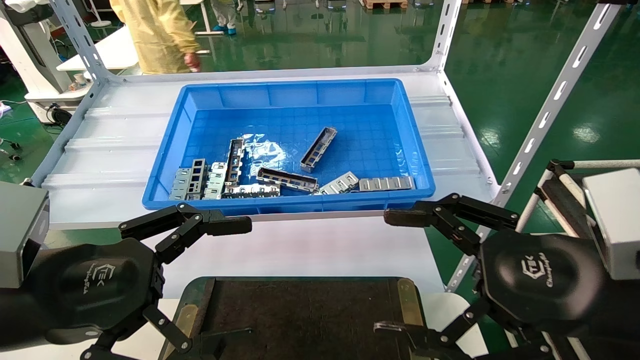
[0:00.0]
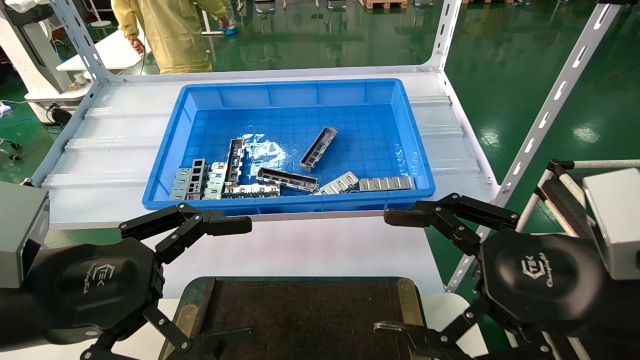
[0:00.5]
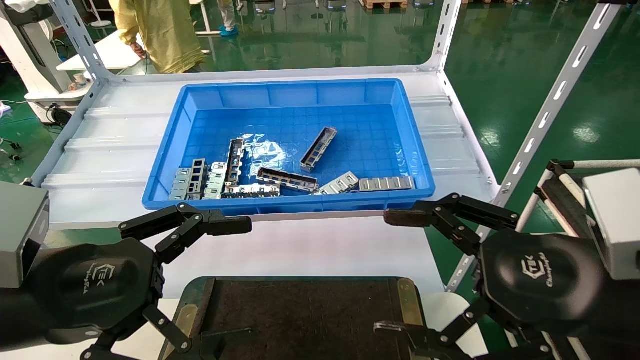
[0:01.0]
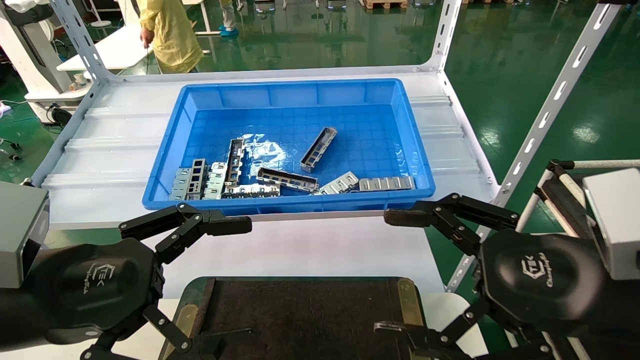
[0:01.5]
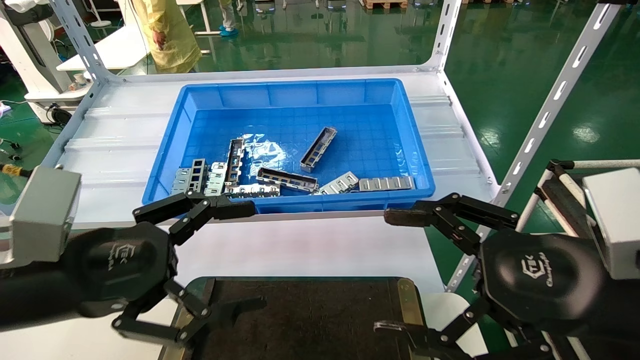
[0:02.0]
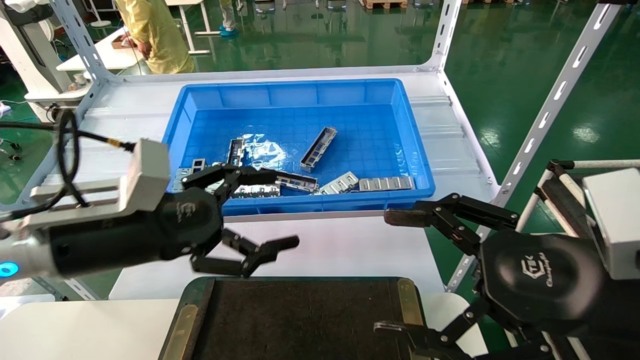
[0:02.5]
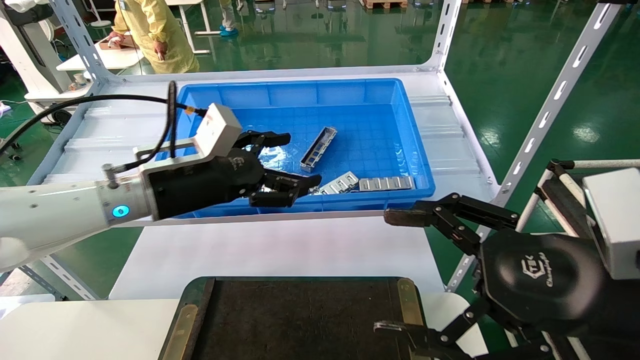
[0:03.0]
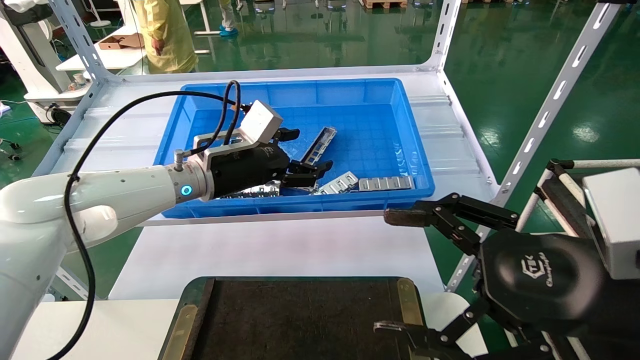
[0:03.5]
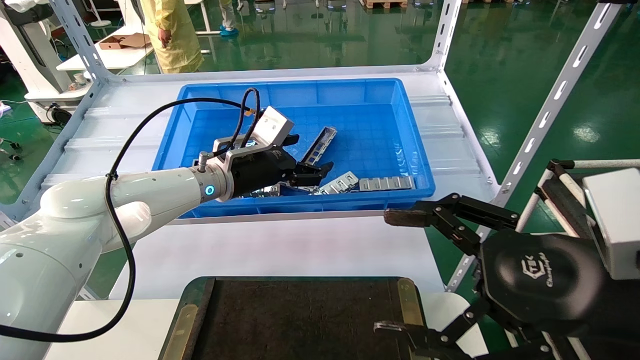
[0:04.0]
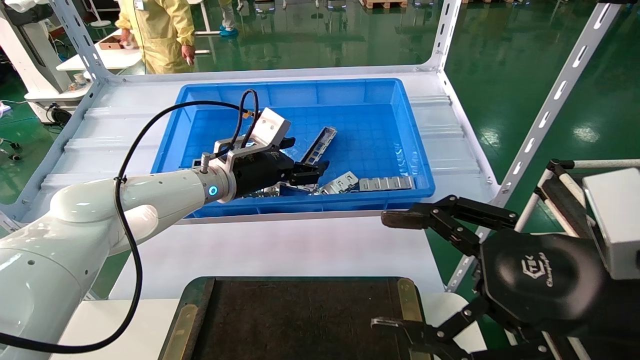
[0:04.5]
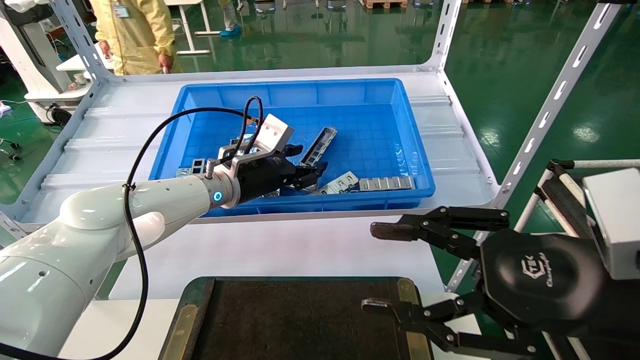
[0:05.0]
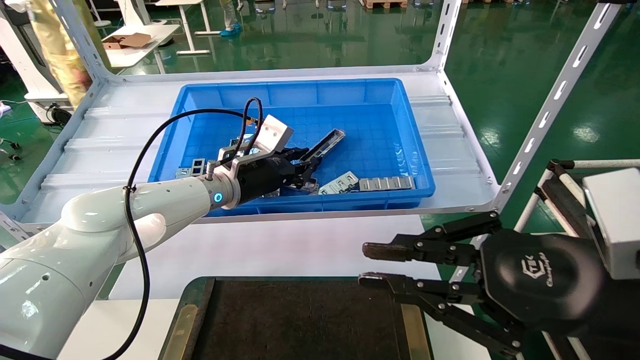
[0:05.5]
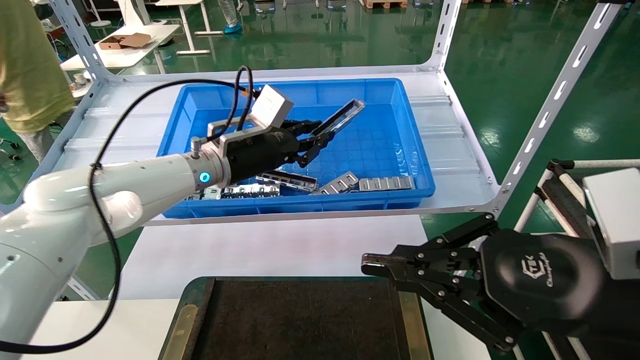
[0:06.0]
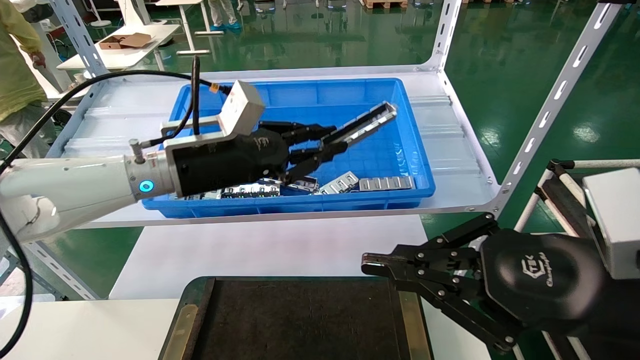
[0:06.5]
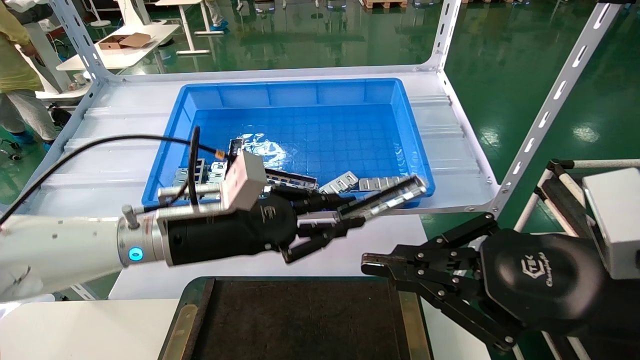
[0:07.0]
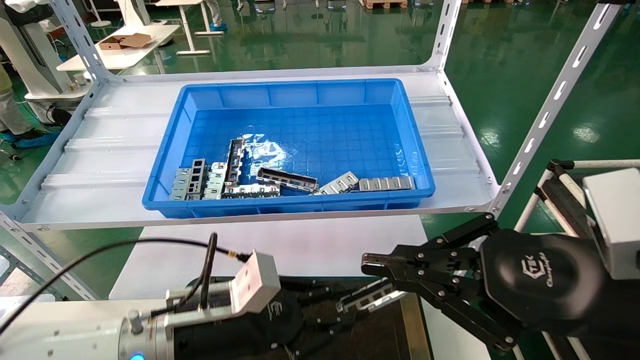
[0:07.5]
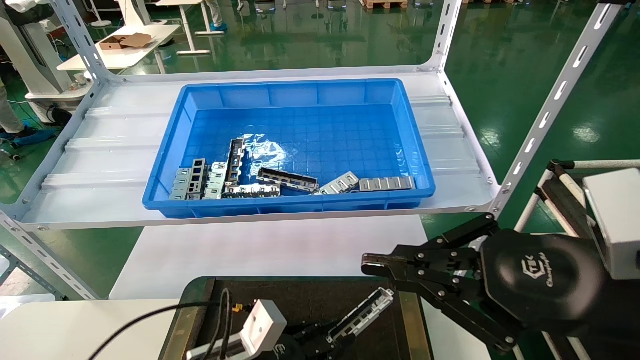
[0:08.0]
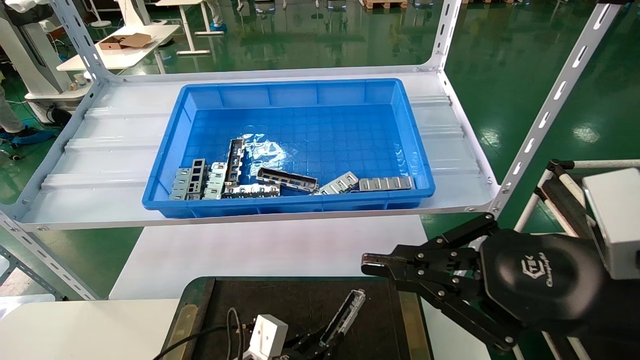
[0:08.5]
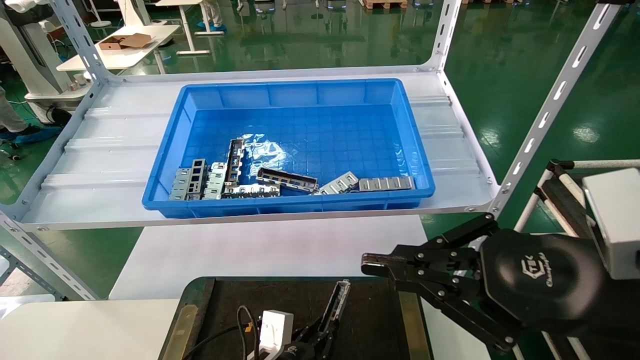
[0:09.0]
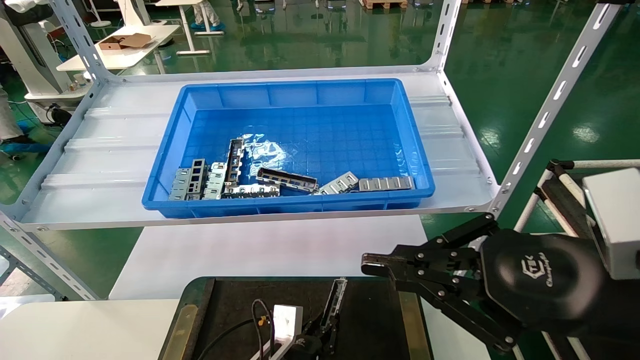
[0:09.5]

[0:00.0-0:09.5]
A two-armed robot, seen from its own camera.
Task of the whole recording: Grasp the part with one hand and place it on the black container.
Step, 0:02.0 to 0:05.0: Pick up the front USB bracket from the feeding area.
0:00.0 to 0:02.0: There are only small adjustments of the grippers.
0:02.0 to 0:04.0: The left gripper heads forward and to the right, covering about 30 cm.
0:04.0 to 0:05.5: The left gripper closes its fingers. The right gripper closes up.
0:05.5 to 0:07.5: The left gripper heads backward and downward, covering roughly 25 cm.
0:07.5 to 0:09.5: The left gripper travels downward and to the right by approximately 20 cm.

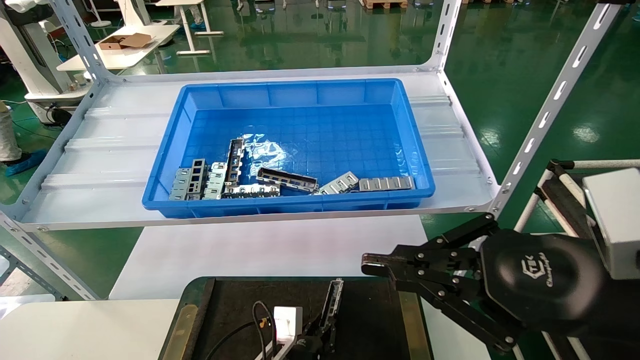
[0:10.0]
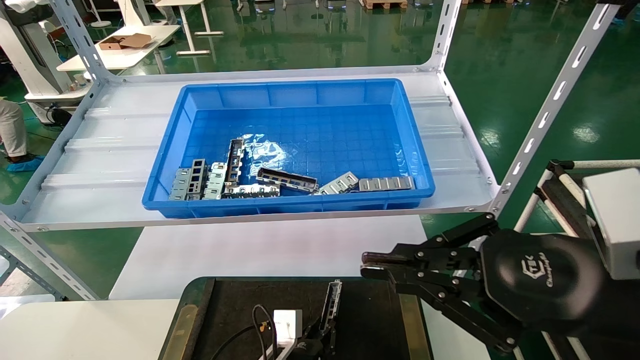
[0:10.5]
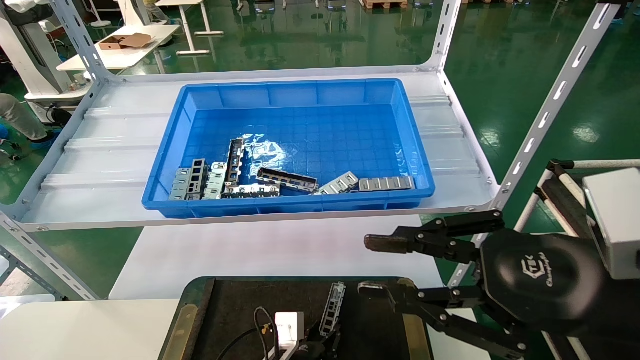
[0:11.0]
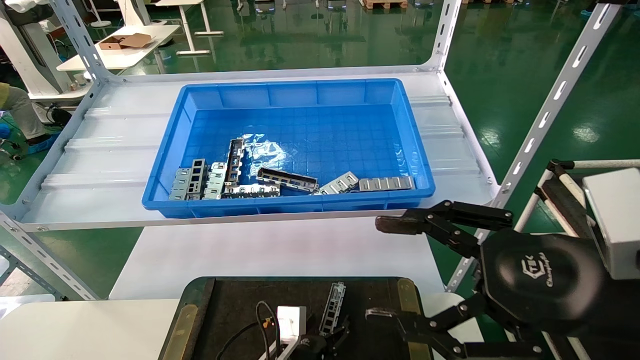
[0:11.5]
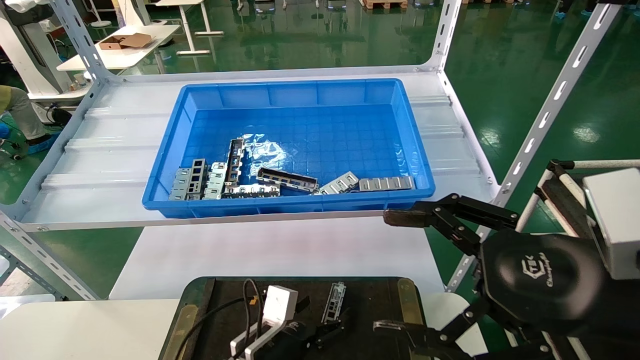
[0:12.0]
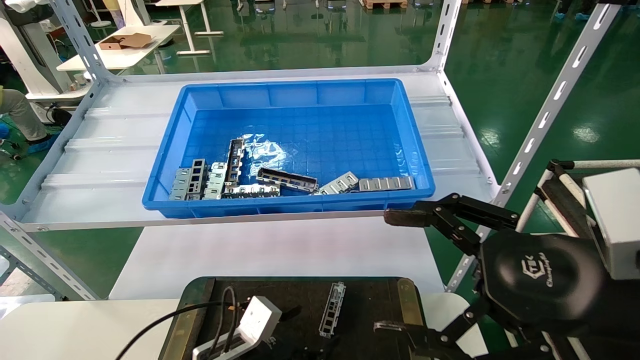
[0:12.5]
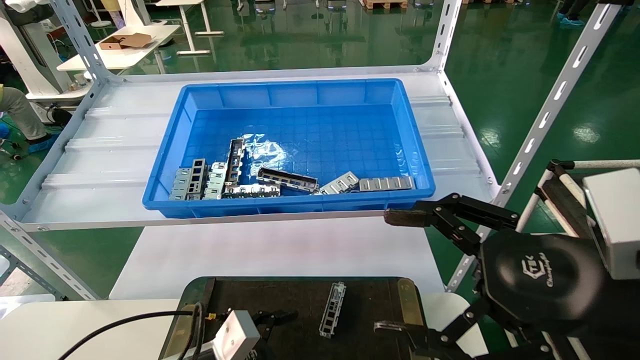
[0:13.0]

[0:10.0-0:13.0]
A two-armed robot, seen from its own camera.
Task of the whole recording: Grasp the part with one hand and place it on the black container.
0:10.0 to 0:11.5: The left gripper opens; the right gripper opens up.
0:11.5 to 0:13.0: The left gripper shifts about 15 cm to the left, upward and backward, and opens its fingers, while the right gripper opens up.
